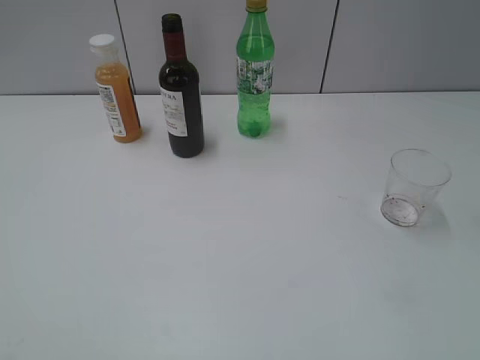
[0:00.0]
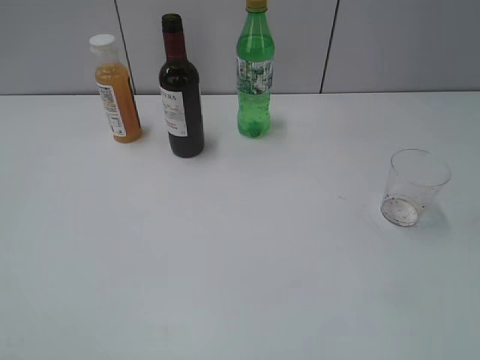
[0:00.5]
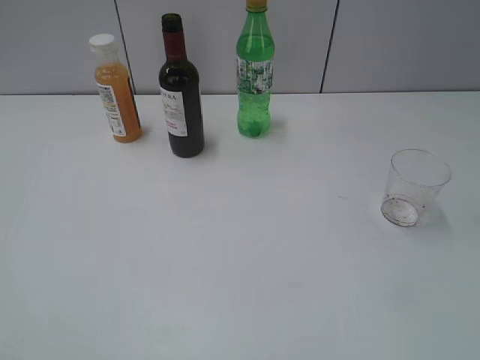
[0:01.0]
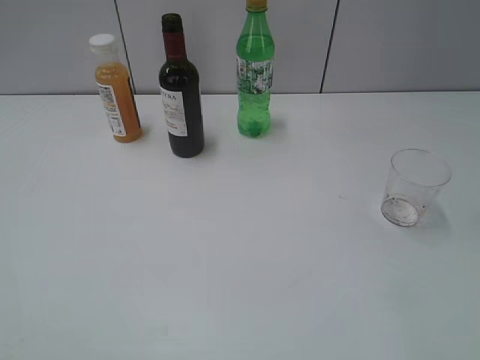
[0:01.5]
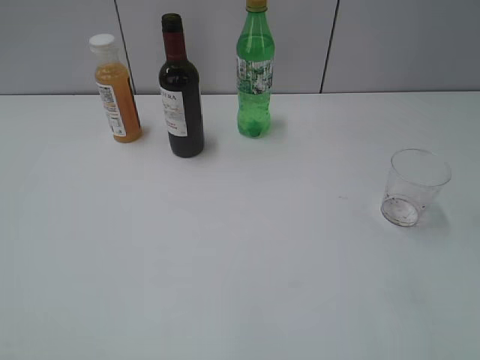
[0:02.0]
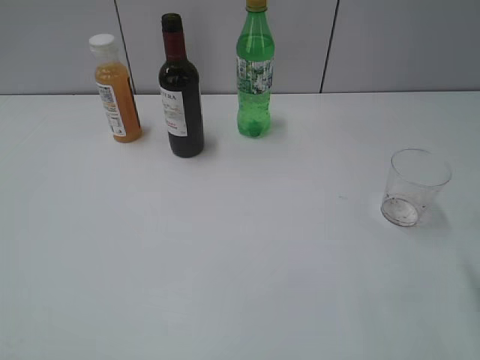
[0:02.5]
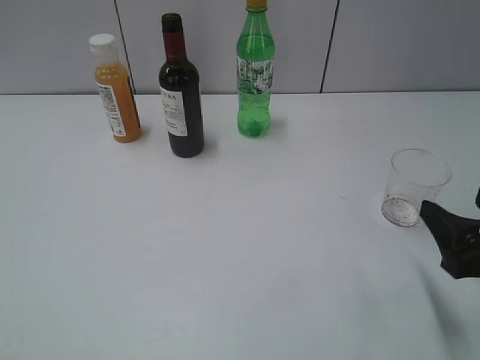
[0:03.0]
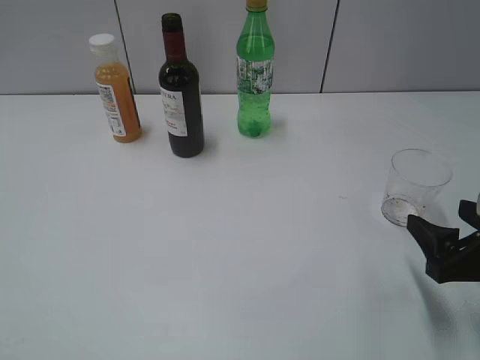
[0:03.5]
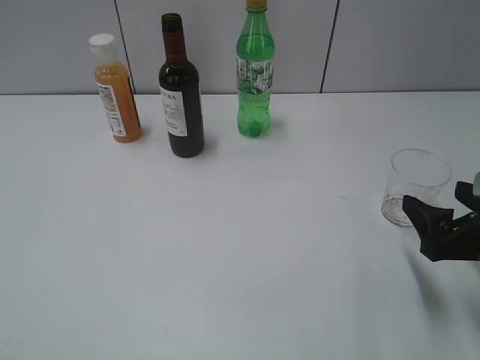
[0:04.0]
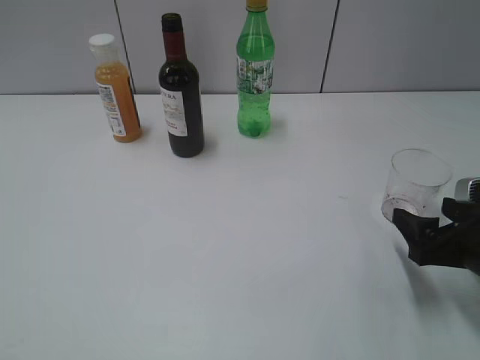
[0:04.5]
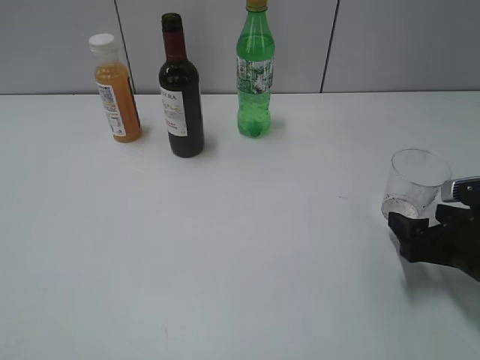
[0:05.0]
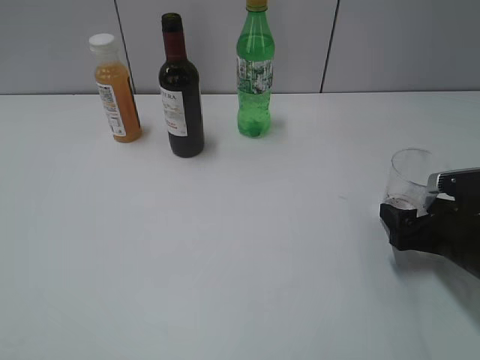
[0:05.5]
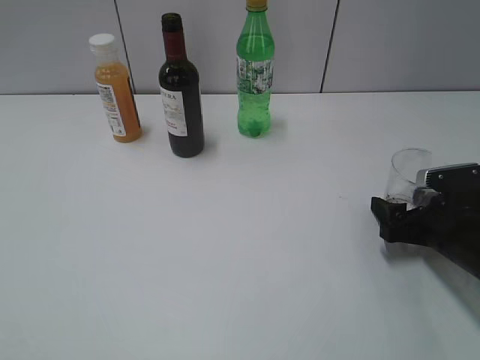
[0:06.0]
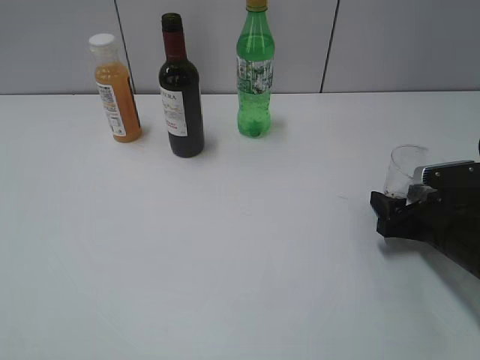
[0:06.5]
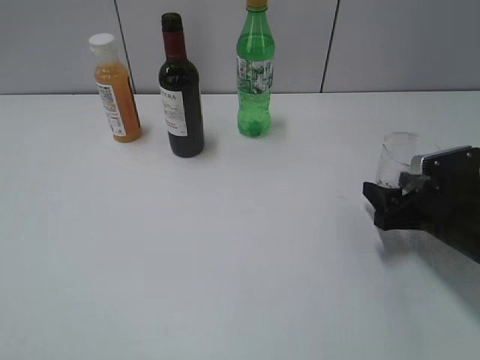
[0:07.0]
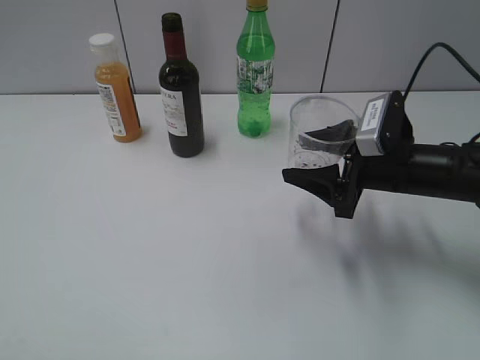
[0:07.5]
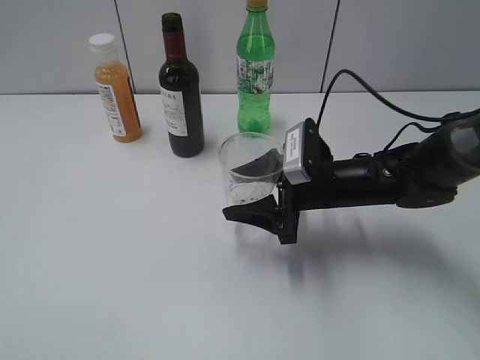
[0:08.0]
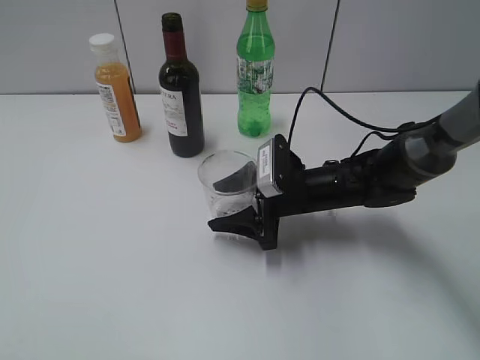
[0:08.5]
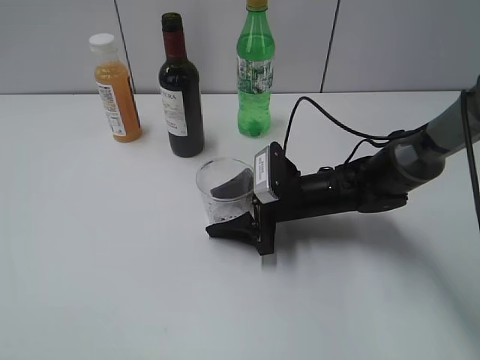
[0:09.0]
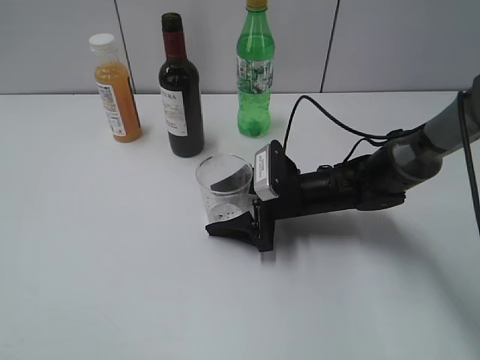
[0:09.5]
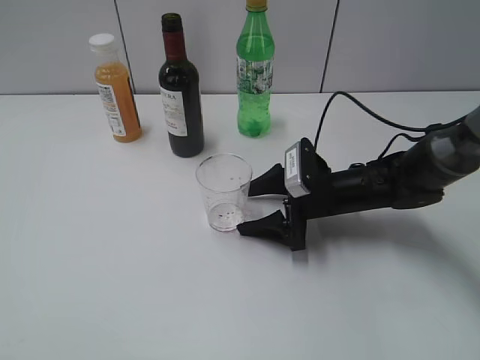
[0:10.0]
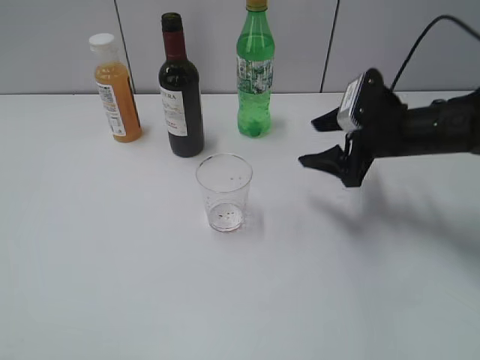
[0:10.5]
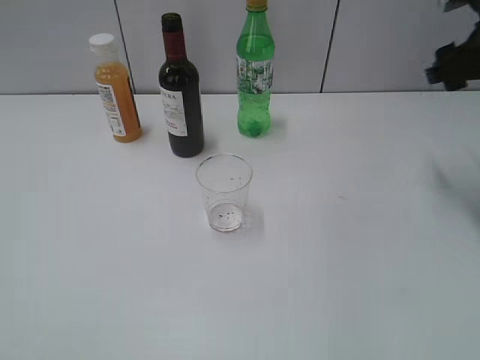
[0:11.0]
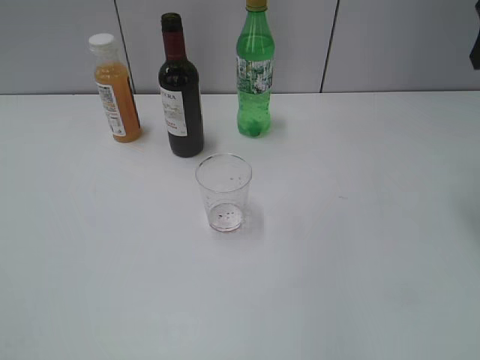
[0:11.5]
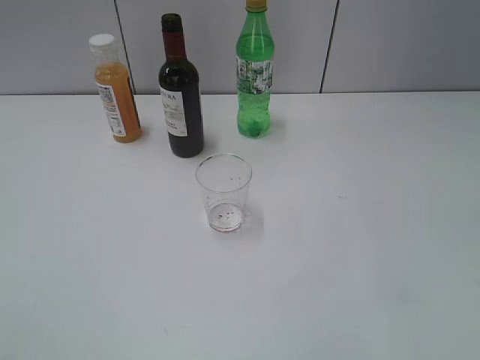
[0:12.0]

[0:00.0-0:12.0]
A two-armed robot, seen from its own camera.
Step, 1.0 to 6.5 s: Grasp the transparent cup with right gripper.
Step, 7.0 to 10.0 s: Place the transparent cup on the table with right gripper.
2.0 to 4.0 s: The right gripper moves downward and forward, some 15 cm, and opens its fingers.
4.0 to 6.0 s: The right gripper is displaced downward and forward by approximately 10 cm.
6.0 to 8.0 s: The right gripper travels to the left by approximately 15 cm, and closes.
8.0 to 10.0 s: The right gripper shifts by roughly 5 cm, and opens its fingers.
10.0 to 12.0 s: The right gripper shifts about 40 cm upward, to the right and backward, and closes up.

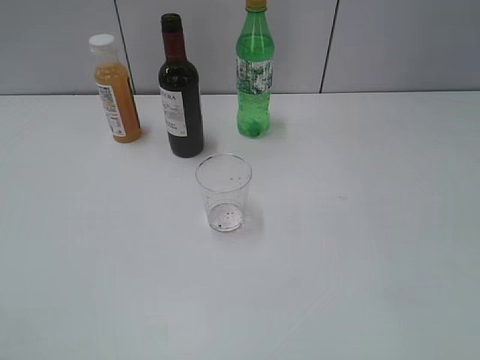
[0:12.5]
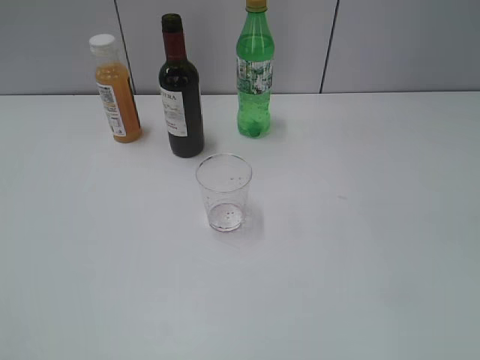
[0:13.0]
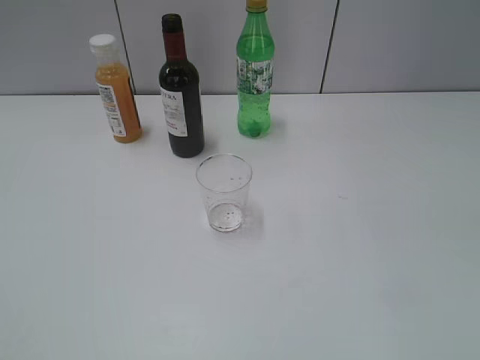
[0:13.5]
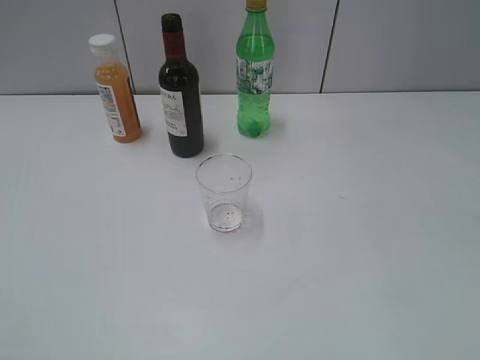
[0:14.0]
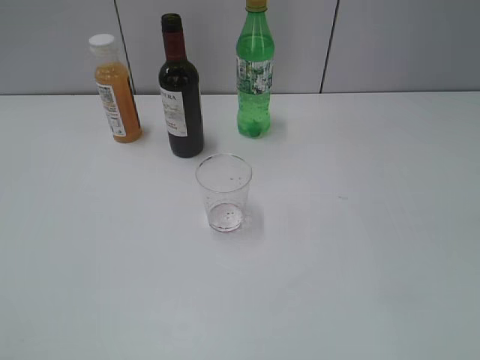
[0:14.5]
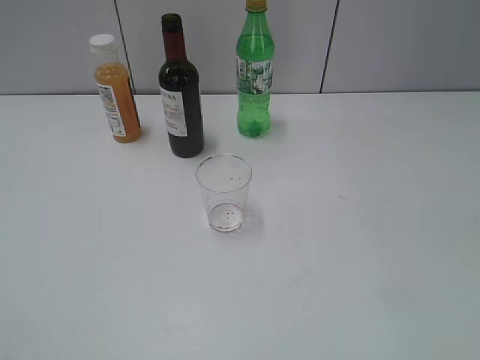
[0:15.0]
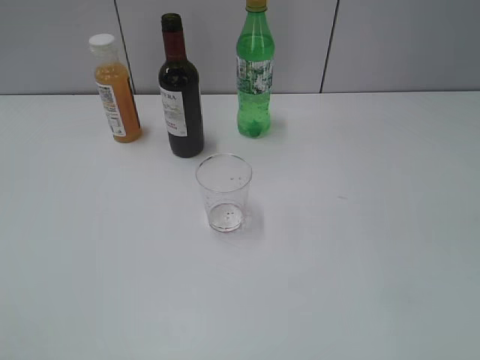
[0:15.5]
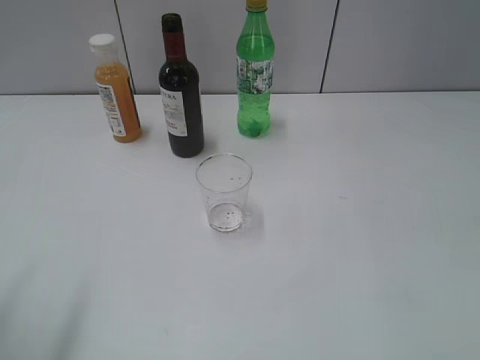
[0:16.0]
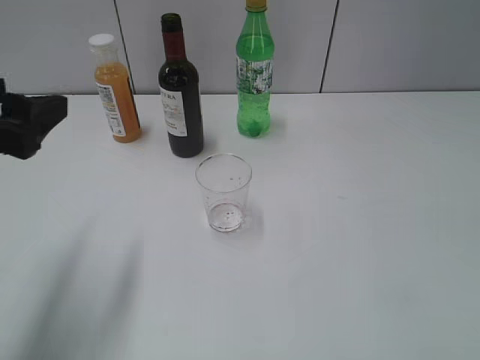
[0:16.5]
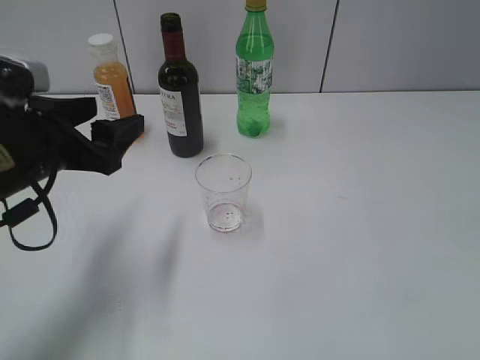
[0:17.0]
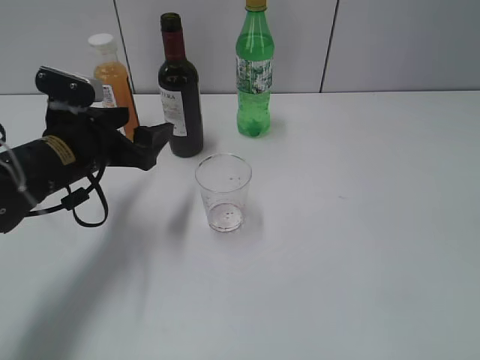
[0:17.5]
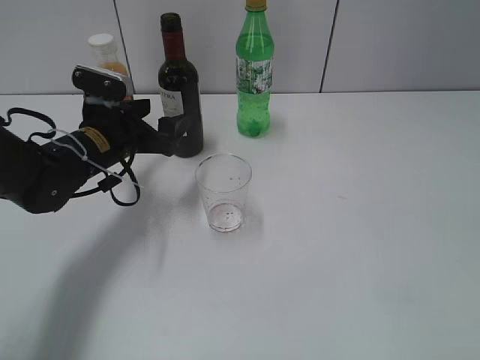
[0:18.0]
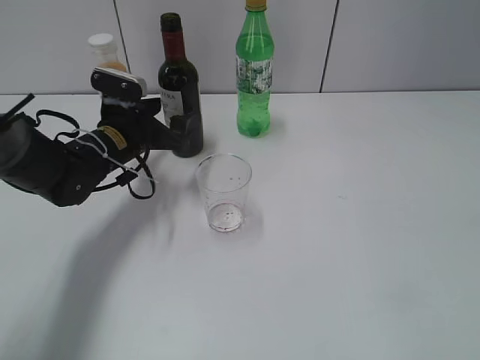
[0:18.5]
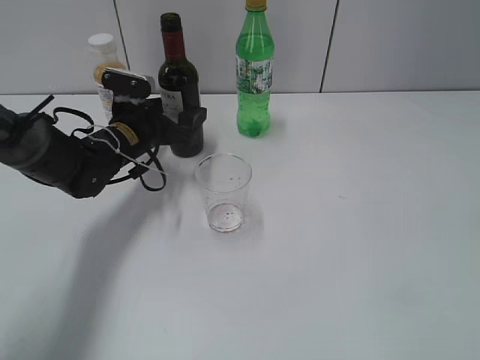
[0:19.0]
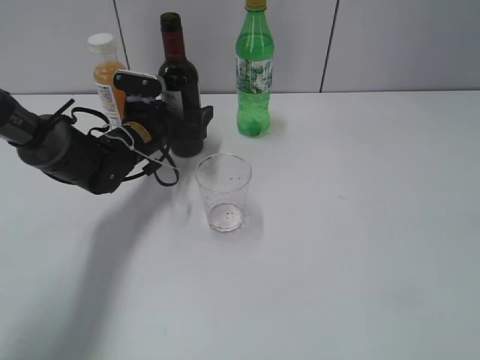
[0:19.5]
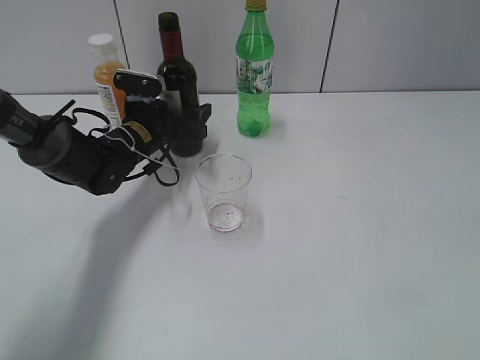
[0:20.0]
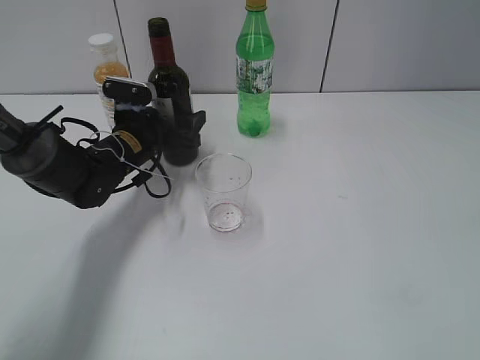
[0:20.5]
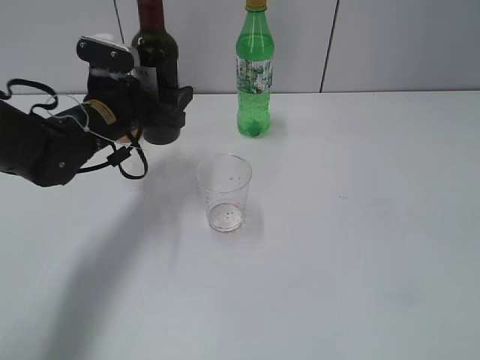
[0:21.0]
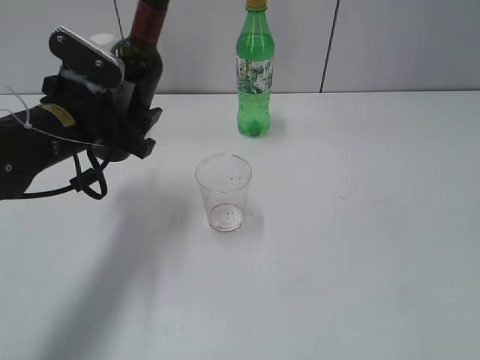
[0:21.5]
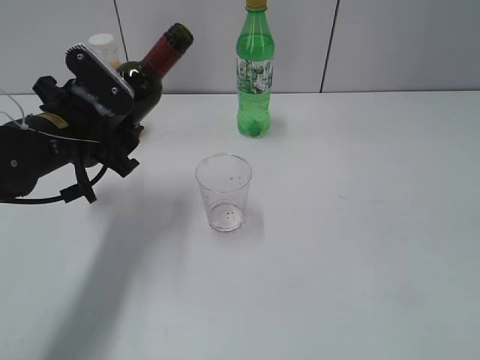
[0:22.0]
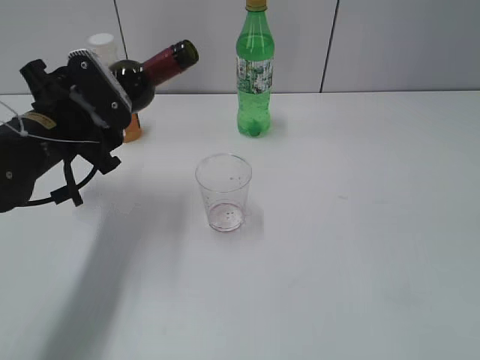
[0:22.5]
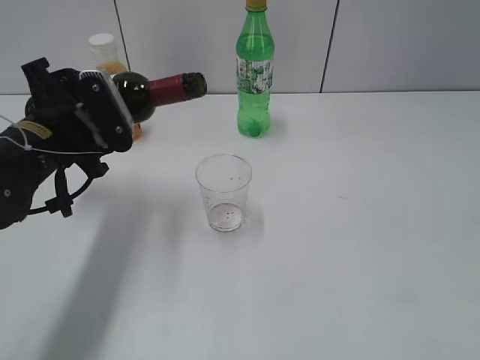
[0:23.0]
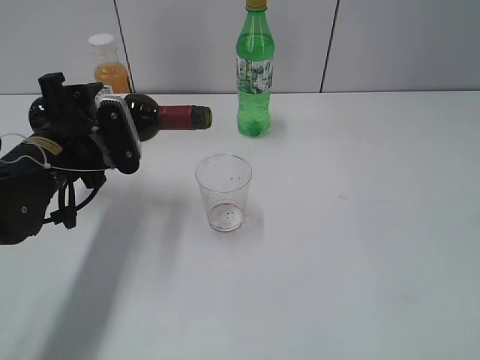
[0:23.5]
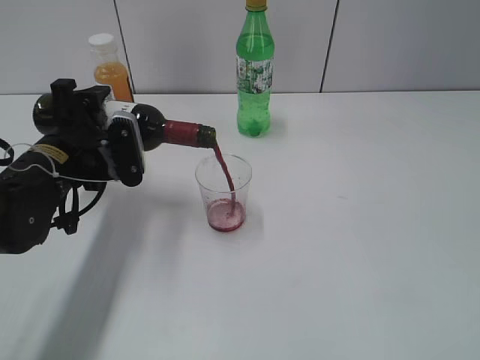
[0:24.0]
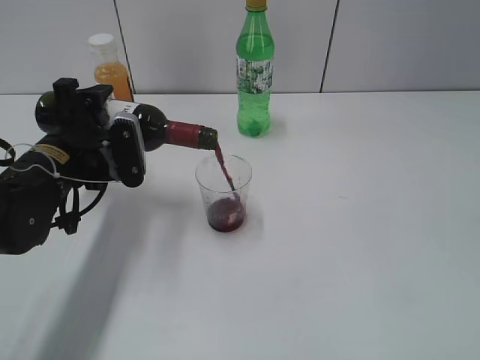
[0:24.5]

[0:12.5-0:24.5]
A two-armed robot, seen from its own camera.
Step, 12.5 to 20.0 s: Grasp the bottle with red wine with left gripper.
14.5 to 16.5 s: The left gripper travels forward by some 20 cm, and opens.
16.5 to 18.5 s: The left gripper heads forward, downward and to the right, covering roughly 25 cm.
18.5 to 20.5 s: The grippers stay close to where they were, moving slightly.
20.5 to 22.5 s: The left gripper is displaced backward and upward by approximately 15 cm.

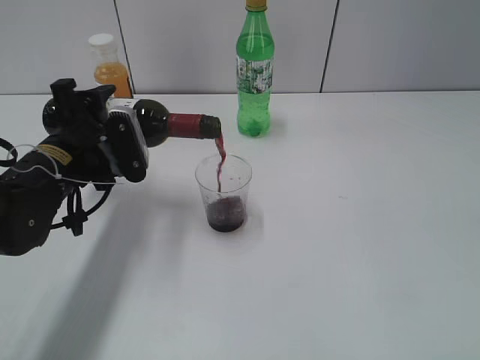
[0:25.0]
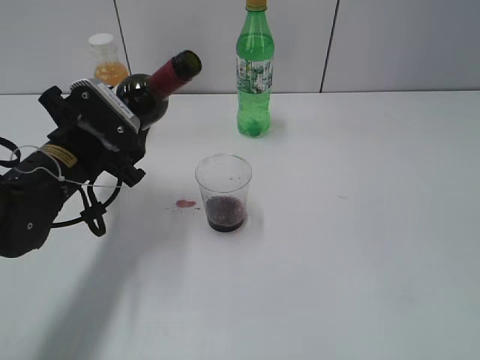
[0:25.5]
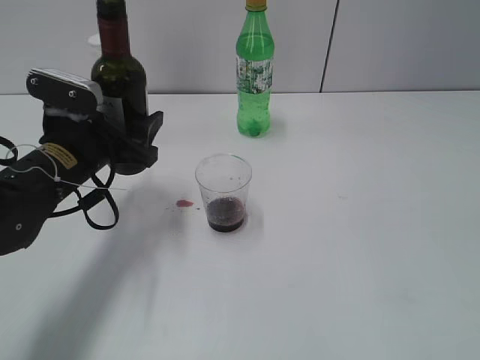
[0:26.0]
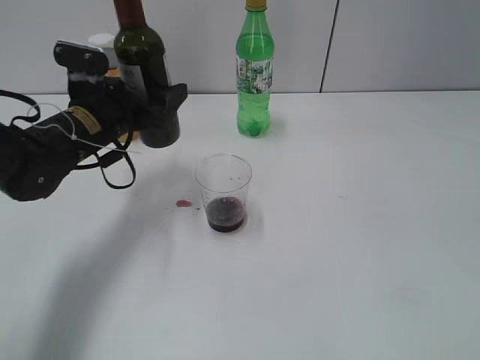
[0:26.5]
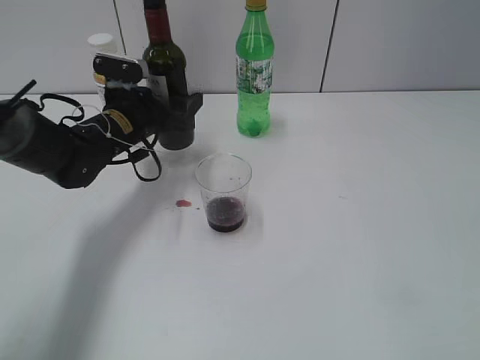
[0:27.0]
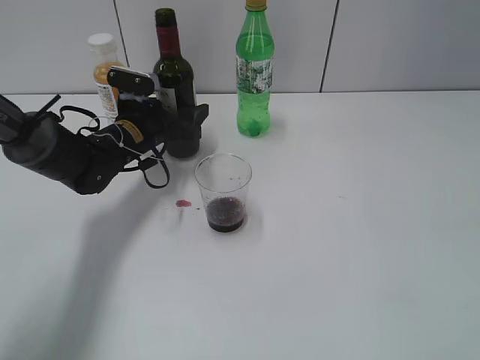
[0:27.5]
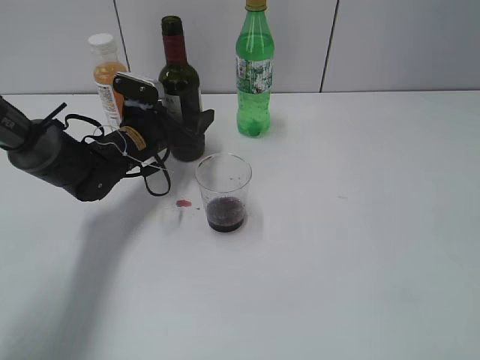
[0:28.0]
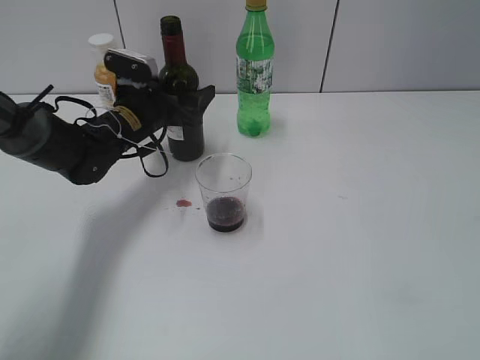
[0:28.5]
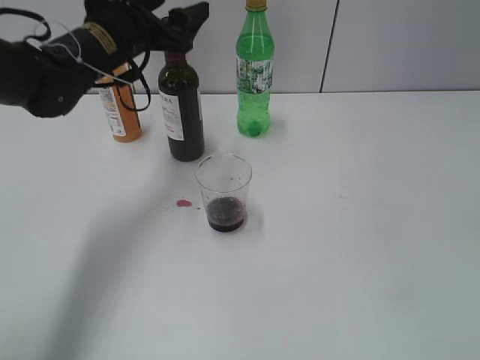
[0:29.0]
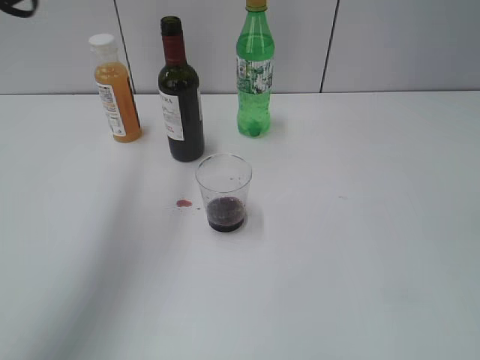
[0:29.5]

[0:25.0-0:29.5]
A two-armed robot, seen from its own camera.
Step, 25.5 to 28.5 s: Place the red wine bottle on the table with left gripper.
25.0 to 27.0 s: The left gripper moves forward, approximately 10 cm.
27.0 to 29.5 s: The left gripper is displaced upward by some 25 cm.
